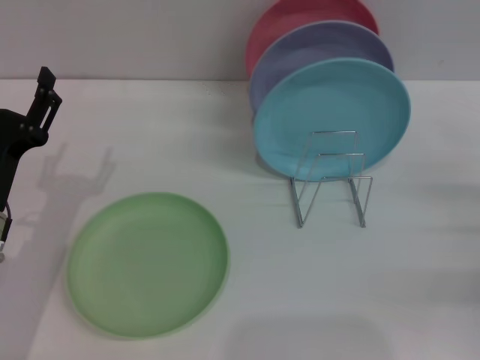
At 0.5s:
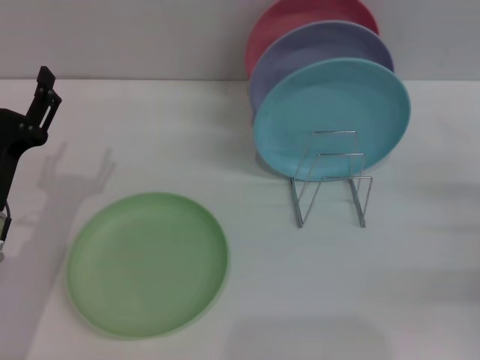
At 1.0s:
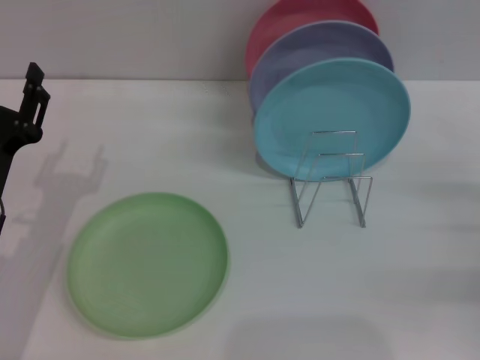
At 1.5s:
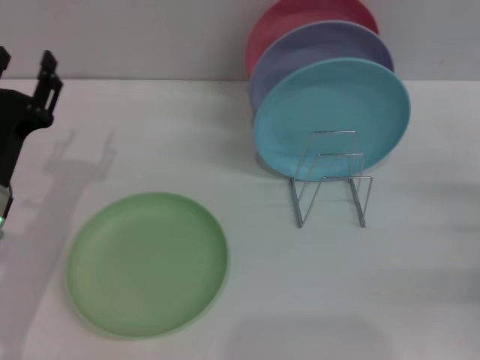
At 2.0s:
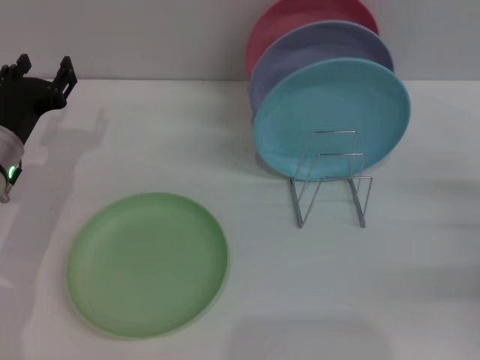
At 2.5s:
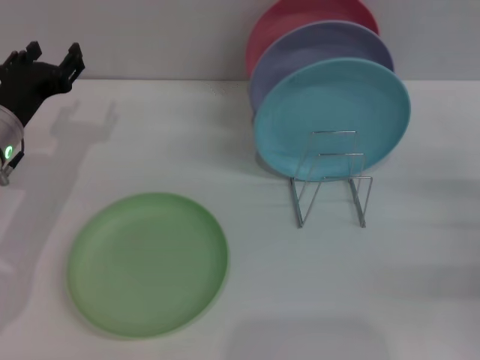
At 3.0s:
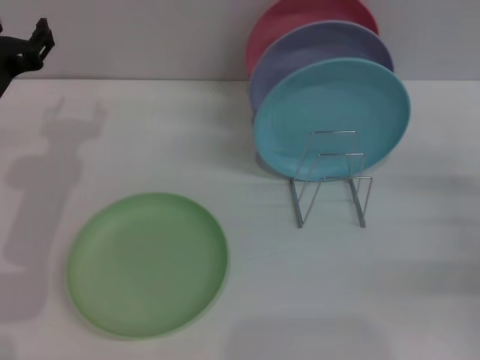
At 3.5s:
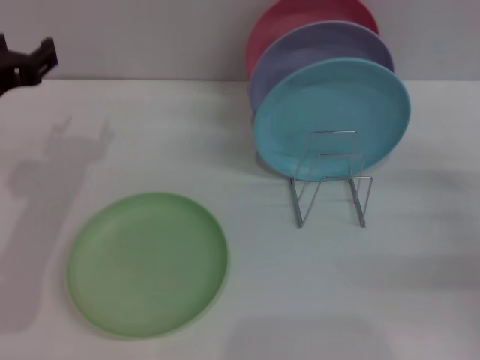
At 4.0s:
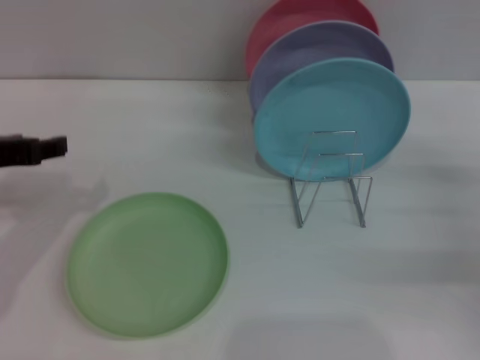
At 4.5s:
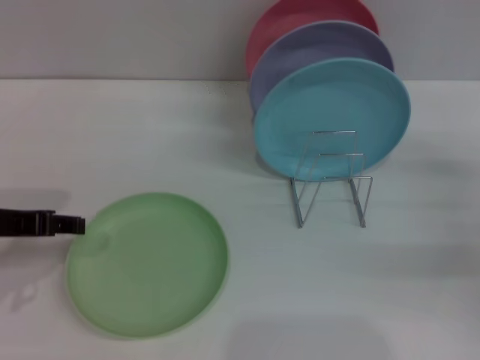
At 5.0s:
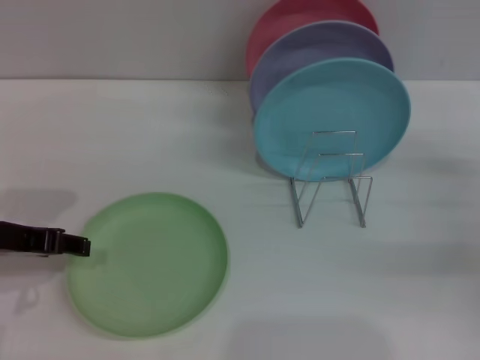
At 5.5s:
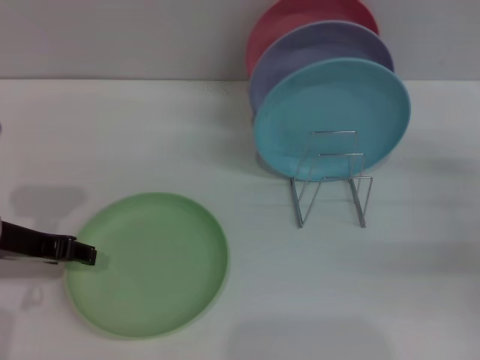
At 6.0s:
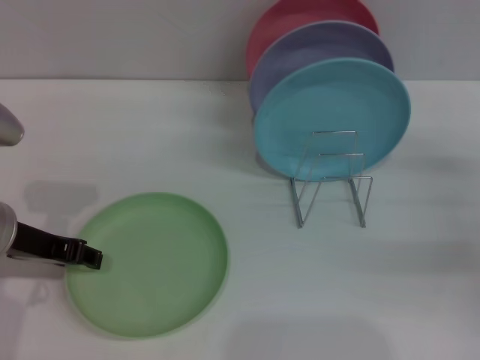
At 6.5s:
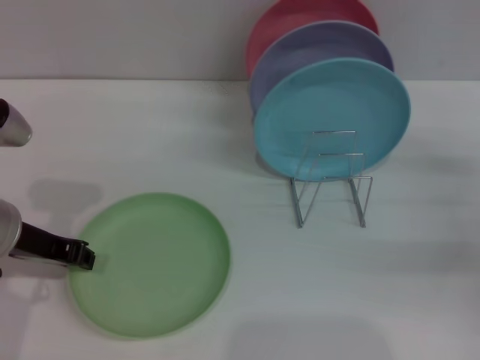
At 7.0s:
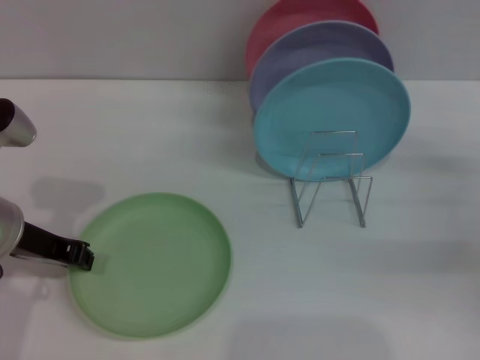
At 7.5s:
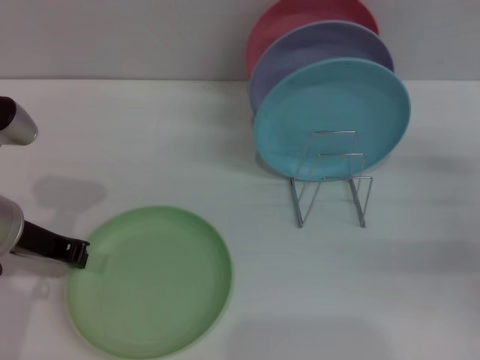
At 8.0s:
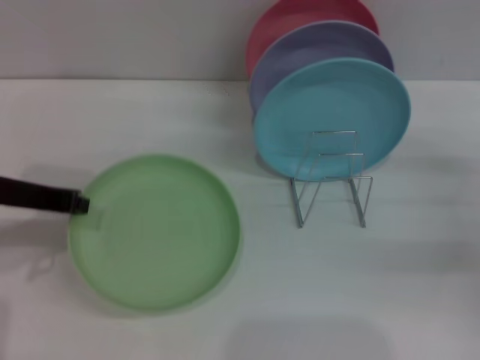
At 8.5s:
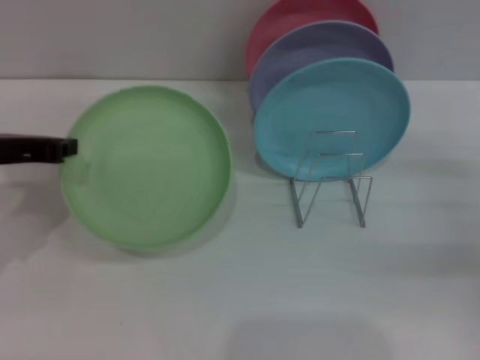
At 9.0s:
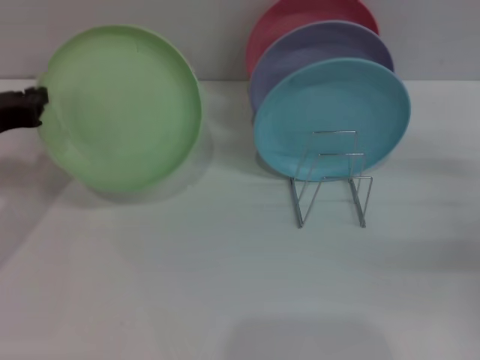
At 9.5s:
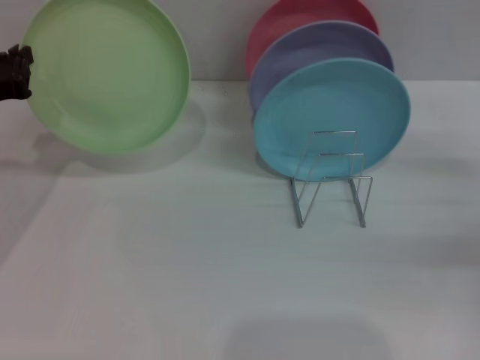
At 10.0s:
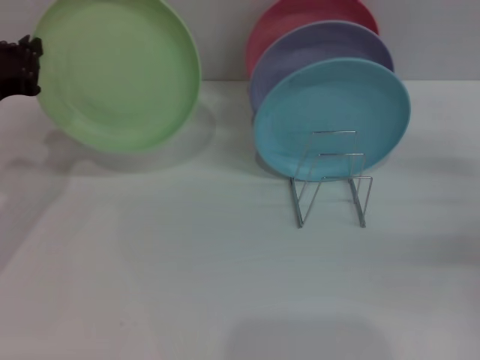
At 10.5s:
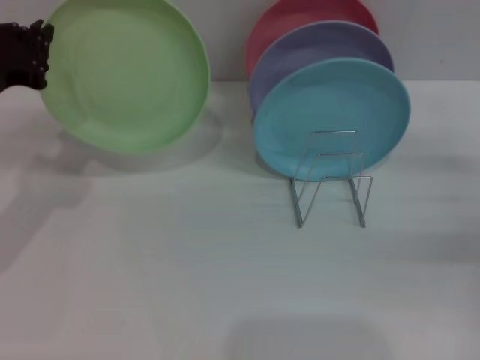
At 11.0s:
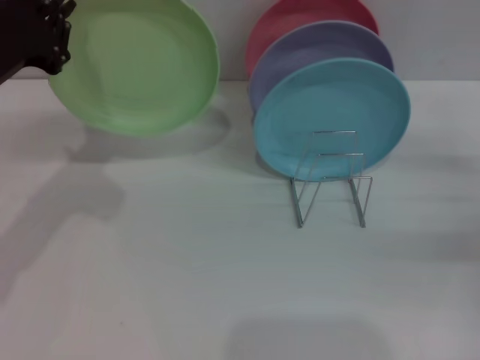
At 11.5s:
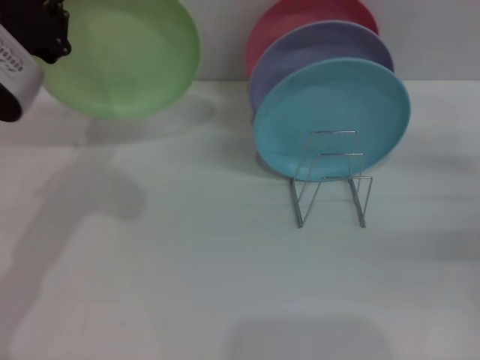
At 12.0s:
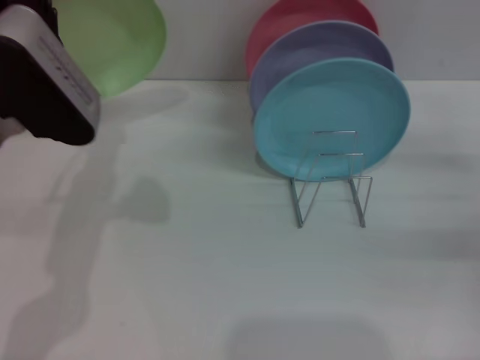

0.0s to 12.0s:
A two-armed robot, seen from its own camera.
Task of the whole recording: Grip the plate with one hand, pass it to the other, then set it on the shelf.
Step, 0.0s to 8.5s: Pick up the plate with the left gripper.
0.0s to 2.0s: The left gripper moves forward, approximately 10 cm.
2.0s to 4.0s: The left gripper travels upward and backward by some 15 cm.
4.0s to 6.0s: The left gripper shifts some 5 cm downward.
6.0s to 8.0s: The left gripper closes its fingers.
10.0s to 12.0s: The left gripper travels to the right by approximately 10 cm.

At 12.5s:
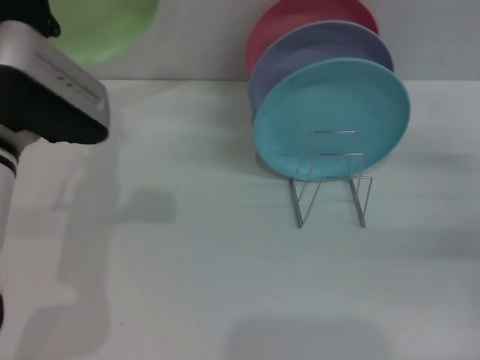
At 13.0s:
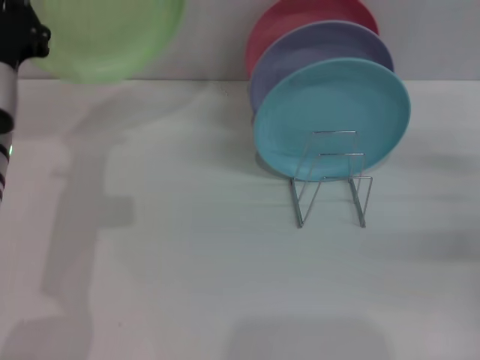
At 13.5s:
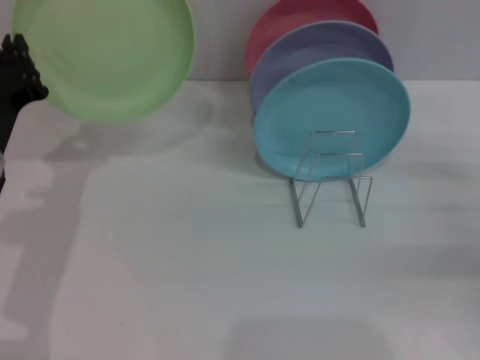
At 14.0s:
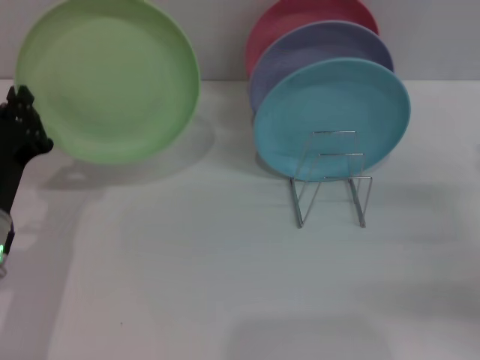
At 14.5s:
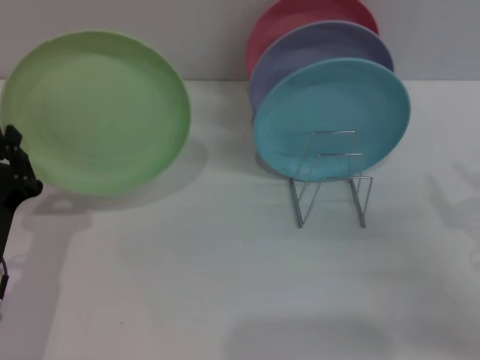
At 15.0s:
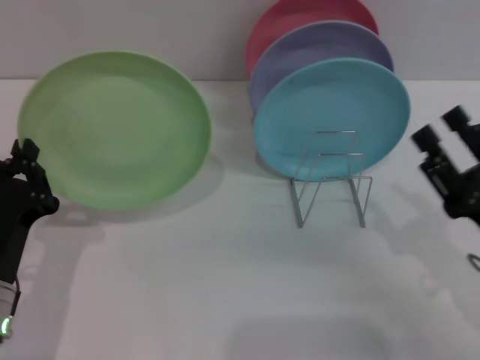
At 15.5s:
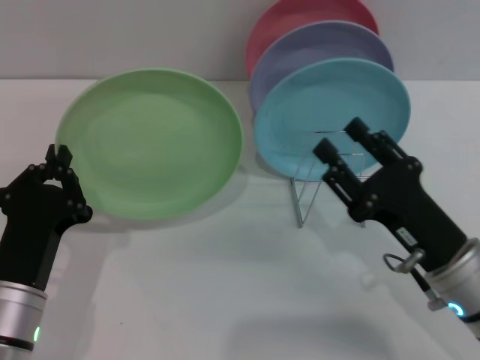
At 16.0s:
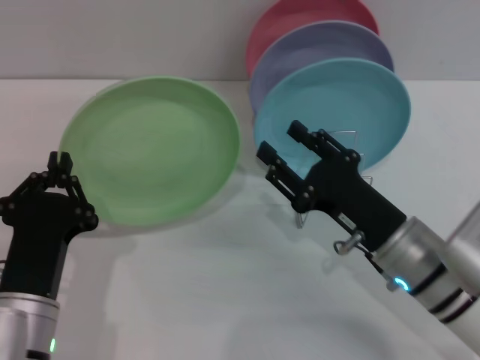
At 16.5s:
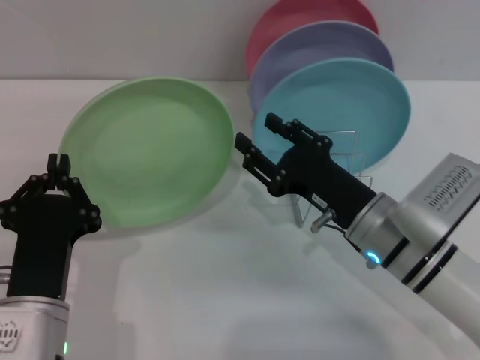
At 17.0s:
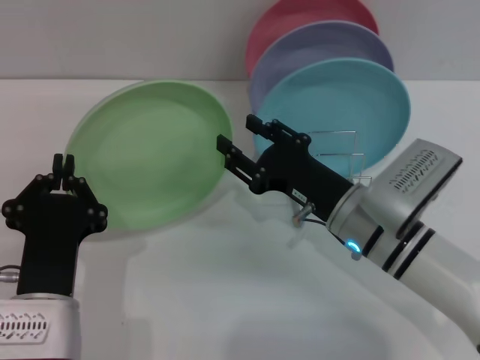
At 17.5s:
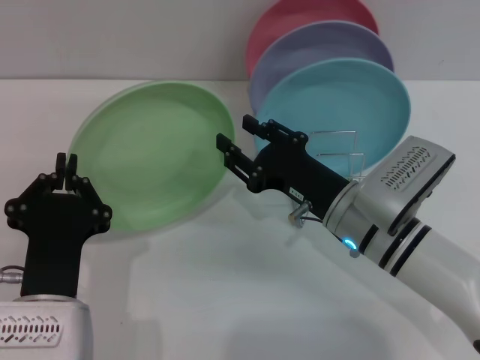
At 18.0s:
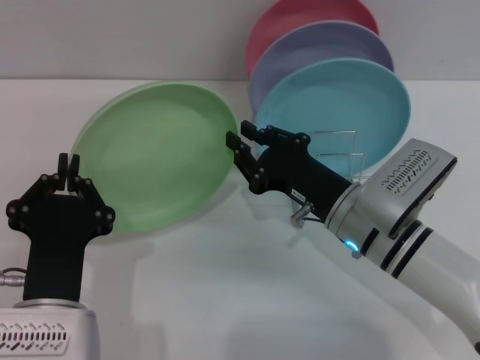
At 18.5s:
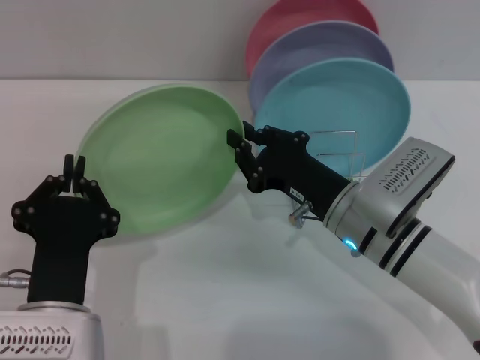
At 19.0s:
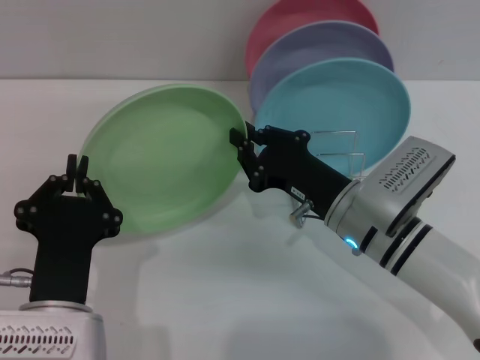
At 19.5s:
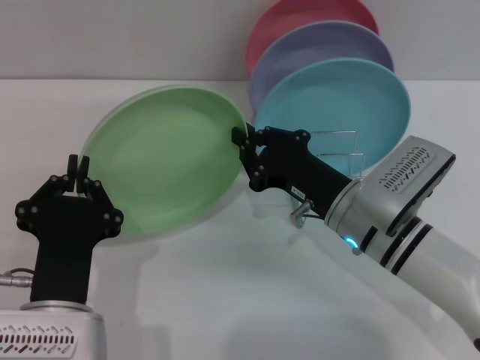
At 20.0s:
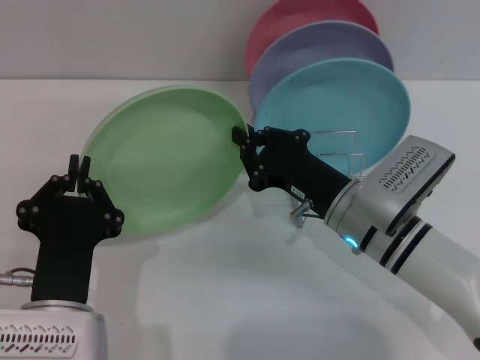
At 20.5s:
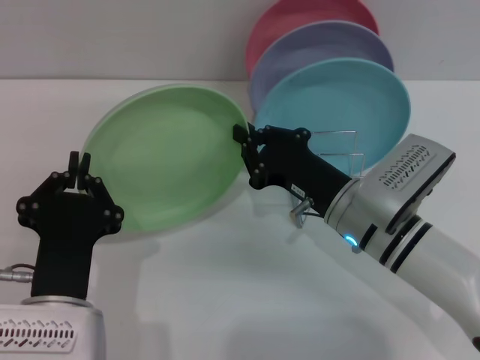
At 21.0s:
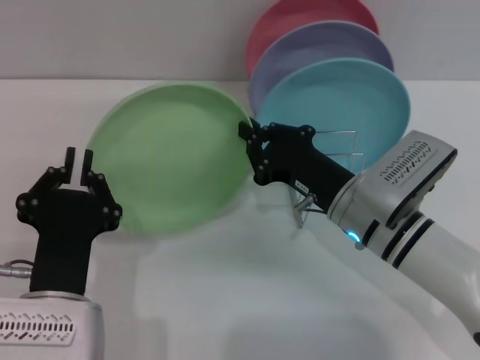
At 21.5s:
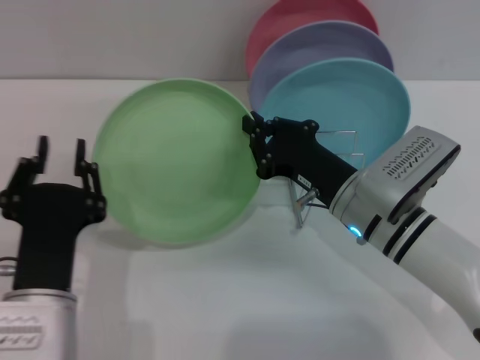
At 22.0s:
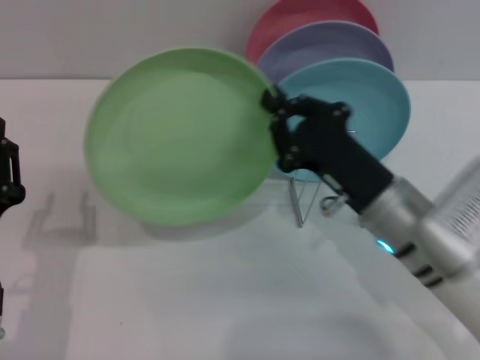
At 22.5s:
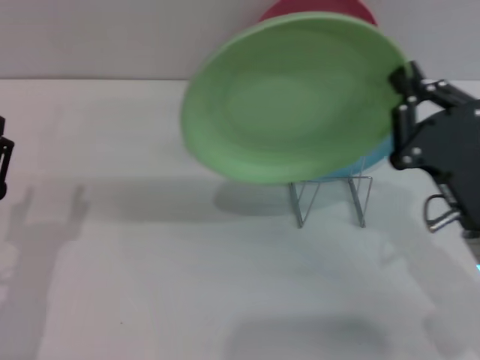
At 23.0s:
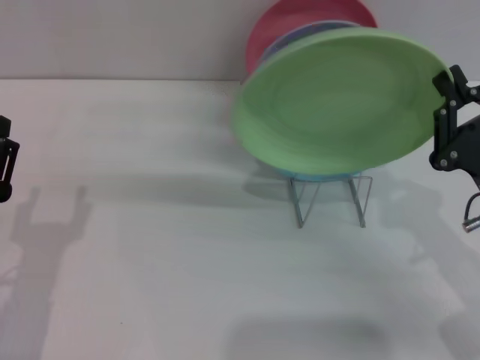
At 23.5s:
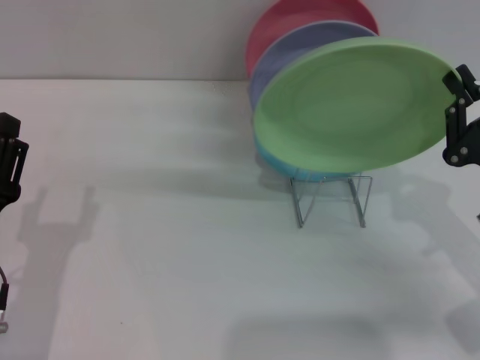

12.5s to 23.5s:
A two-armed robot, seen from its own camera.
Task of the whole recording: Grip the plate with one hand, pass it to the other, then set it on the shelf.
Step, 12.5s to 21.5s: Pass the plate from the left gripper to the right gripper.
12.5s to 14.5s: The left gripper shifts about 15 cm downward, backward and to the left. Meanwhile the right gripper is displaced backward by some 10 cm.
14.5s to 16.0s: The left gripper moves to the right, approximately 5 cm; the right gripper heads to the left, covering roughly 15 cm.
16.0s to 18.0s: The right gripper ends up approximately 5 cm from where it was, and closes its fingers.
18.0s to 20.0s: The two grippers keep their place.
20.0s to 21.5s: The grippers make only small movements.
21.5s to 23.5s: The right gripper heads to the right and backward, covering about 15 cm, while the left gripper heads to the left, covering roughly 10 cm, and opens its fingers.

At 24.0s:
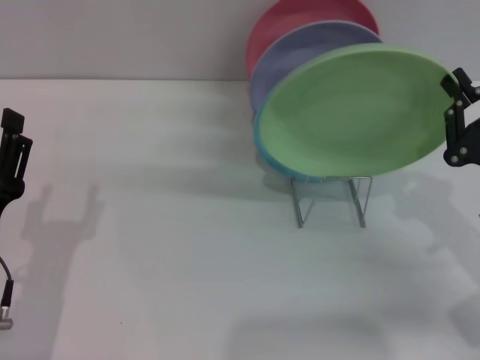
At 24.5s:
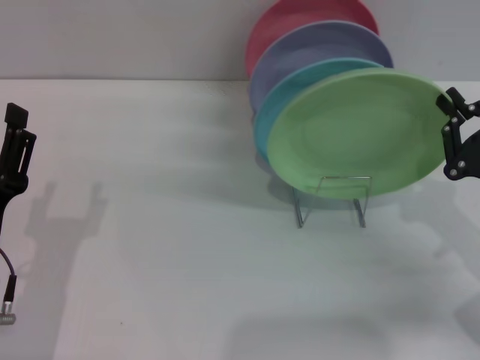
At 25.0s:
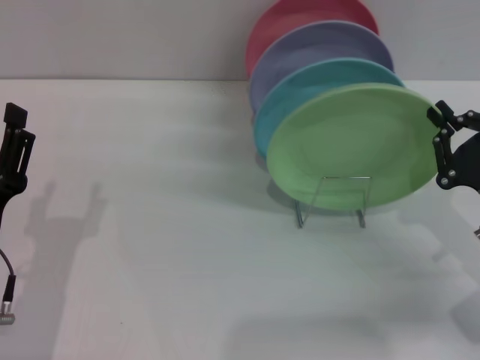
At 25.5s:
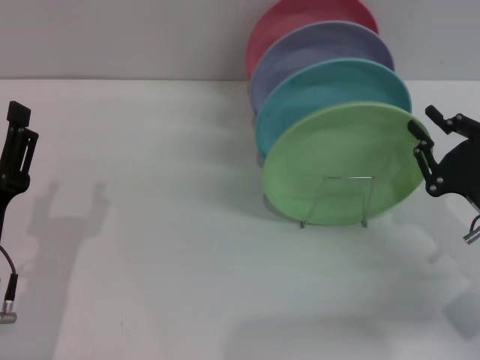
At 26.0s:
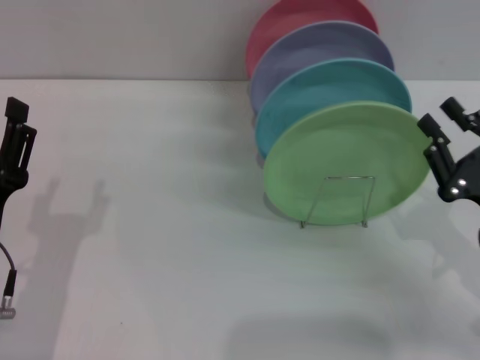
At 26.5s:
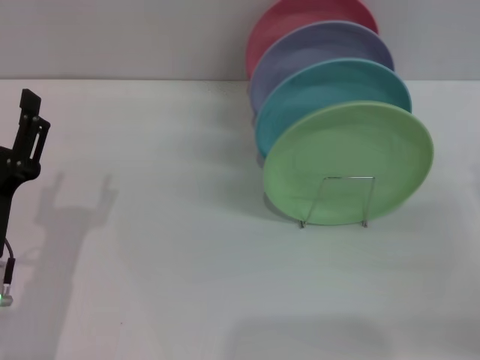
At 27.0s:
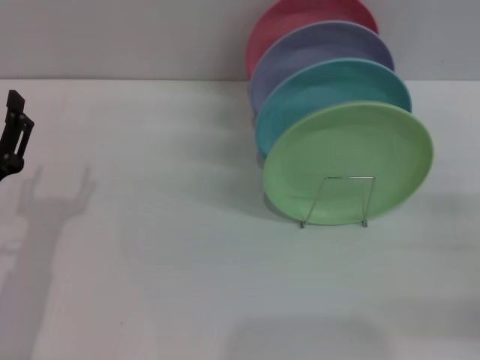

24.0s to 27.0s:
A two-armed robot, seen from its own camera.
Task of the whole recording: Grip the plate with one hand, pass it to the other, then set it on the shelf.
Step, 24.0s to 26.0s: Place the plate on the shelf with the right gripper.
24.0s to 25.5s: The grippers make only small movements.
25.5s to 27.0s: The right gripper shifts some 10 cm to the right, and opens its fingers.
